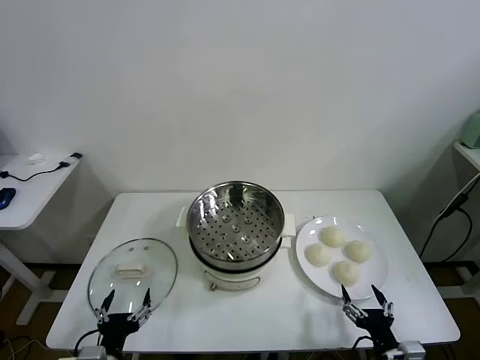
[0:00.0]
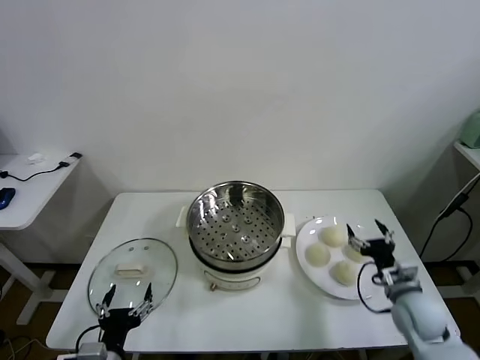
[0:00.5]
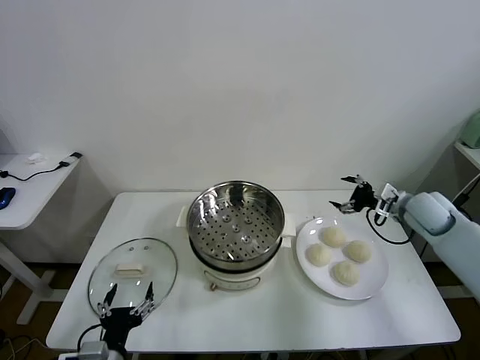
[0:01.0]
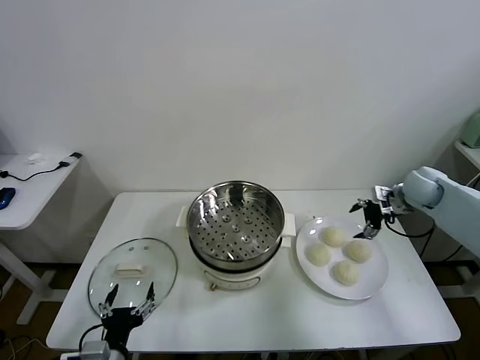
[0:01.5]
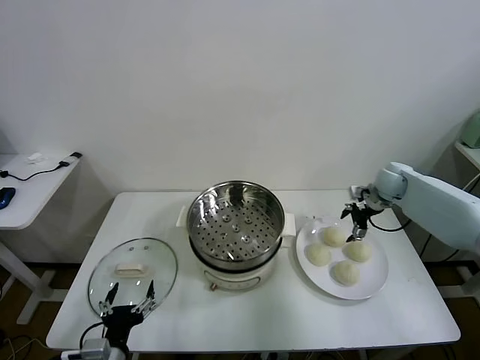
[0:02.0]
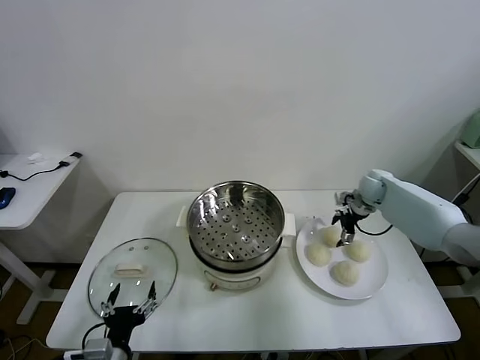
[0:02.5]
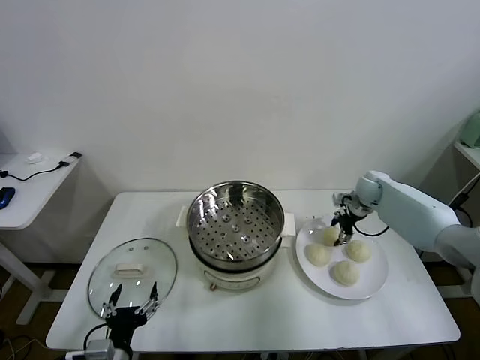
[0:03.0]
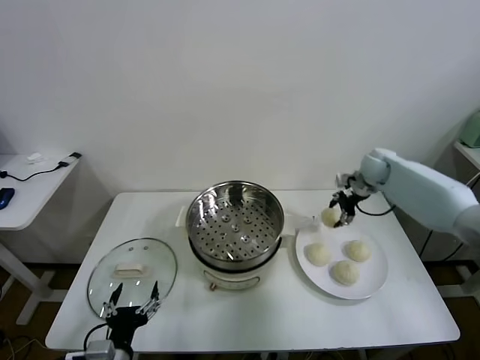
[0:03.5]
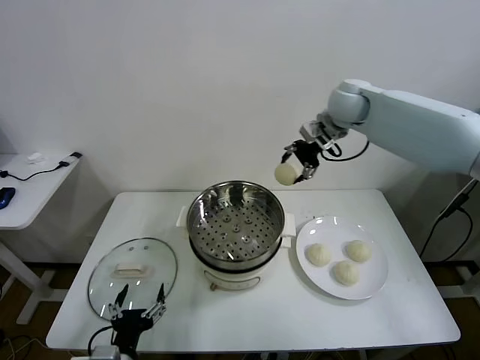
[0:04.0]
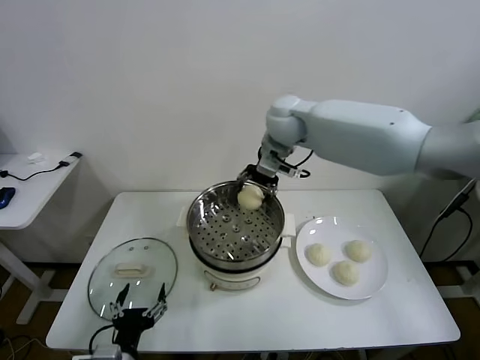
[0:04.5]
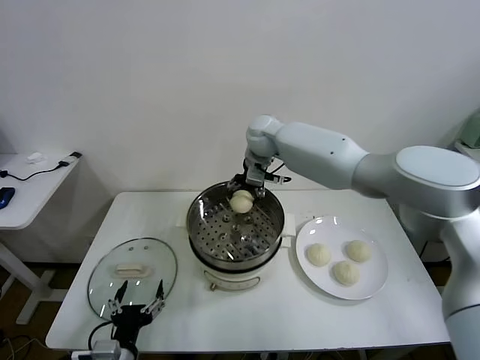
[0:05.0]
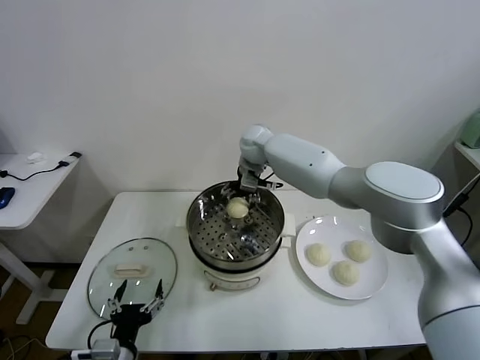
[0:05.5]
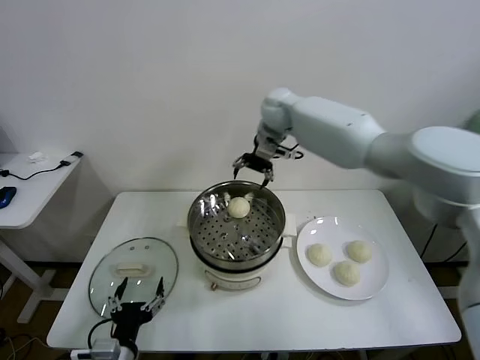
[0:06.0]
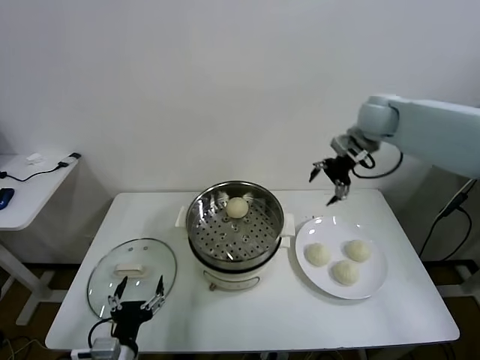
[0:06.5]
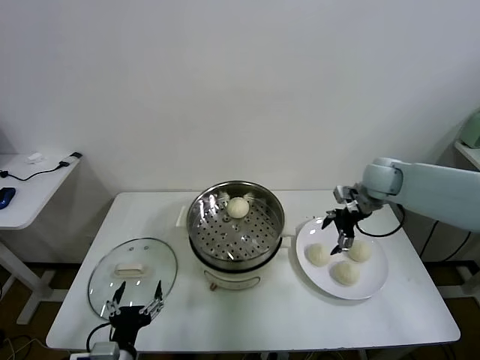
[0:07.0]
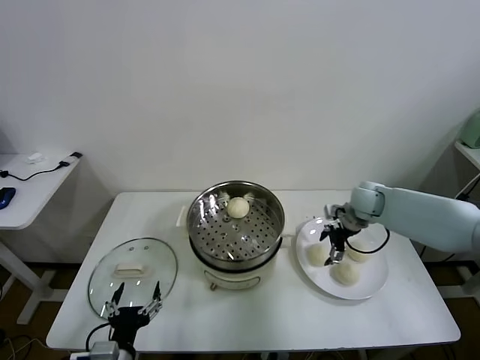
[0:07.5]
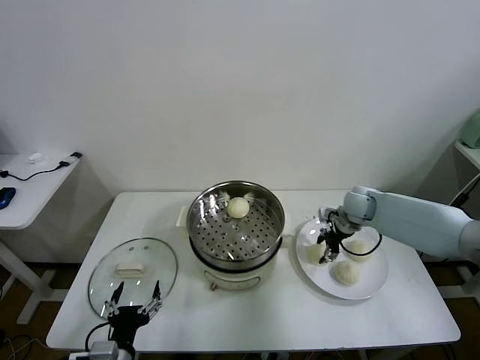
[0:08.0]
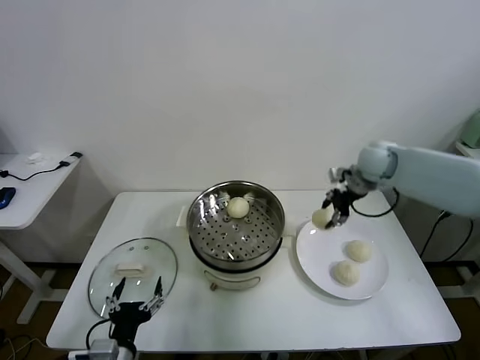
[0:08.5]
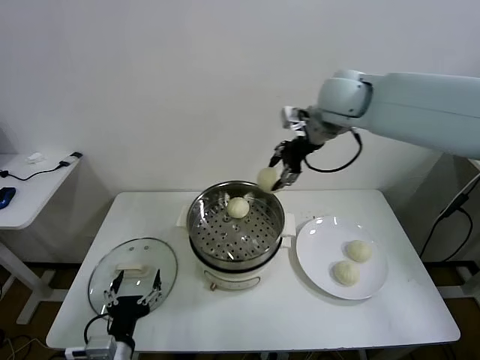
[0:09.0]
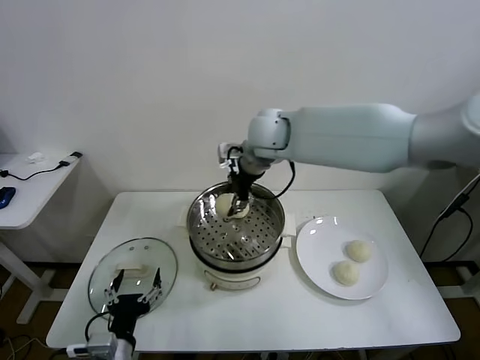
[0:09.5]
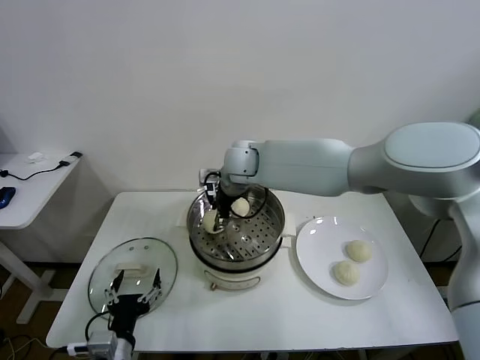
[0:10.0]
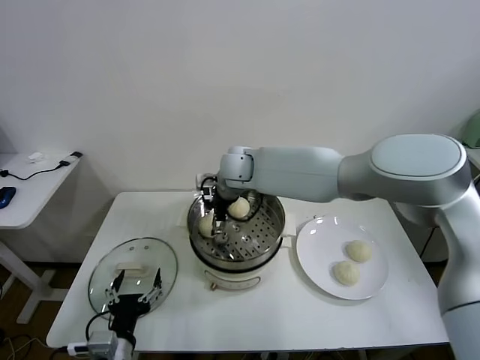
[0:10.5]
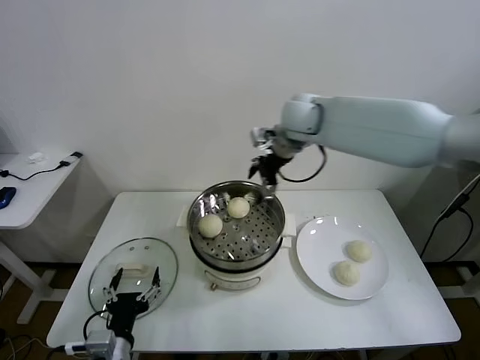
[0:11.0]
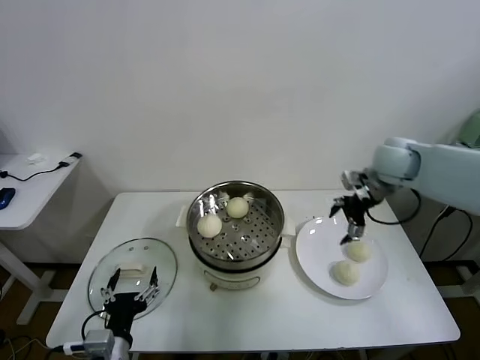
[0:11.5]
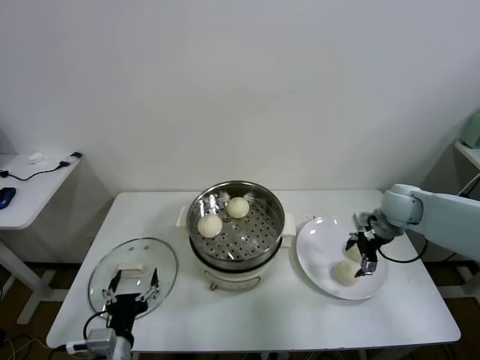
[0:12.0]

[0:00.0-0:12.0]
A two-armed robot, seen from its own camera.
Task of the whole recording: take steamed baozi put them in steamer.
Step, 0:00.0 to 0:02.5: Grasp the baozi in the plate with right gripper.
Step, 0:03.5 to 0:05.5: Place the baozi on the steamer with right gripper.
Step, 0:06.0 to 0:07.5: Grasp the baozi in the plate with right gripper.
Step, 0:08.5 to 0:10.0: Place the baozi on the steamer with right gripper.
0:02.0 to 0:04.0: The right gripper moves upward and to the left, about 30 cm, and closes.
0:04.0 to 0:06.0: The right gripper is displaced forward by some 5 cm, goes to the left and returns, about 15 cm each way, and opens.
0:06.0 to 0:08.0: The right gripper goes approximately 30 cm downward, to the right and backward, and closes its fingers.
0:08.0 to 0:10.0: The right gripper heads to the left and upward, covering about 35 cm.
0:10.0 to 0:12.0: The right gripper travels to the right by about 40 cm, and opens its fingers.

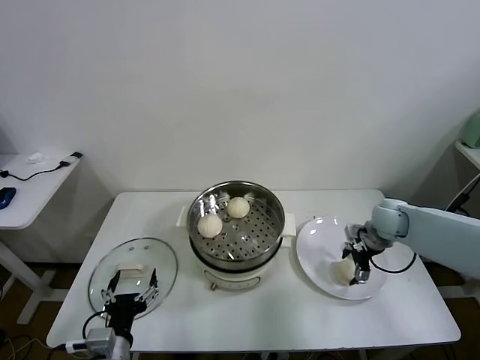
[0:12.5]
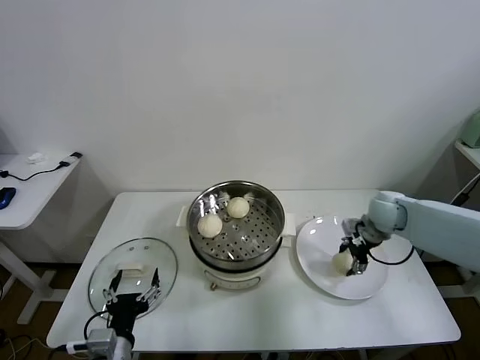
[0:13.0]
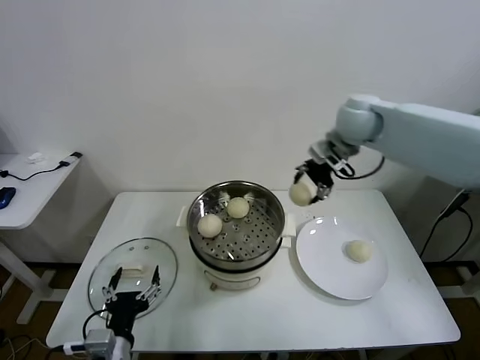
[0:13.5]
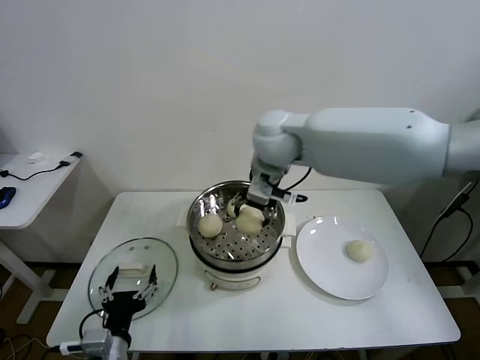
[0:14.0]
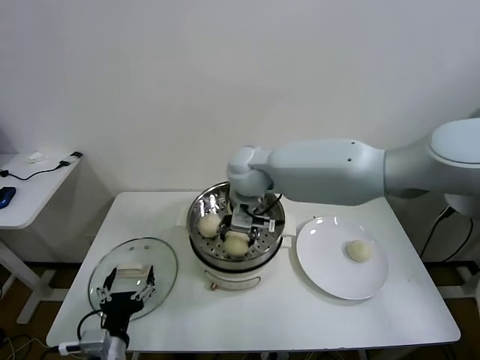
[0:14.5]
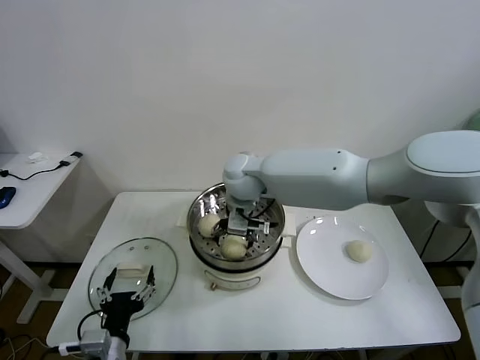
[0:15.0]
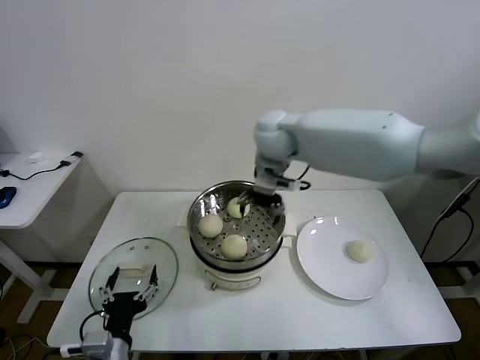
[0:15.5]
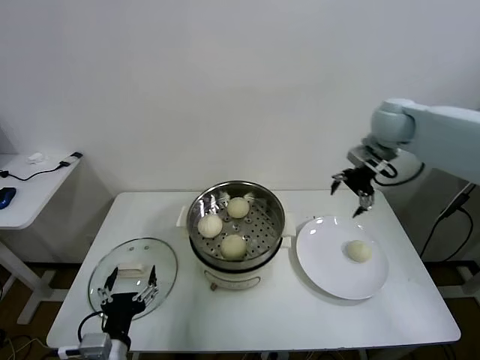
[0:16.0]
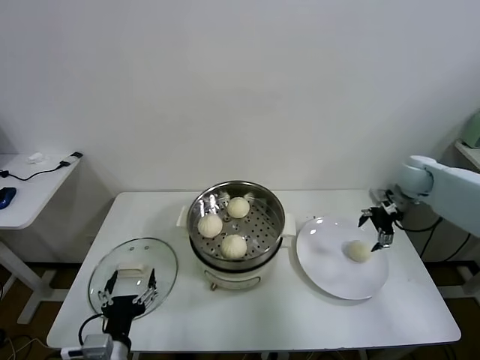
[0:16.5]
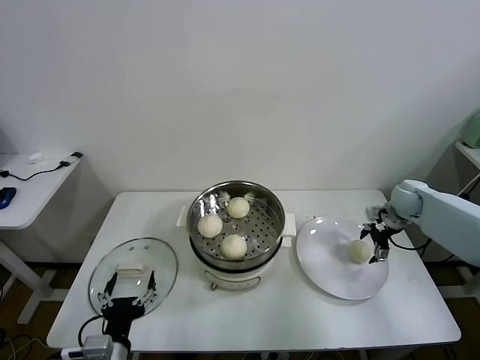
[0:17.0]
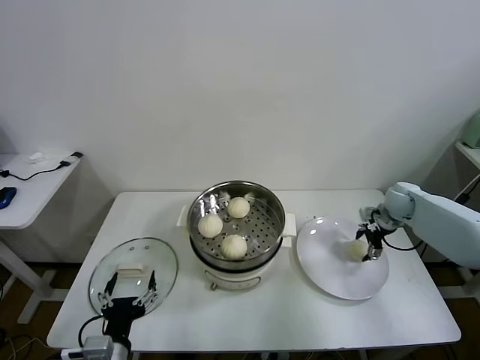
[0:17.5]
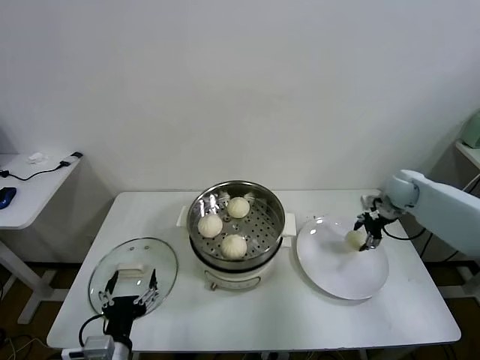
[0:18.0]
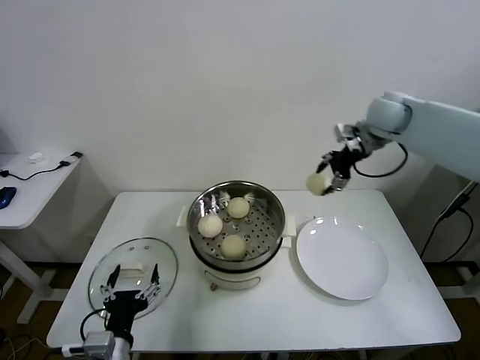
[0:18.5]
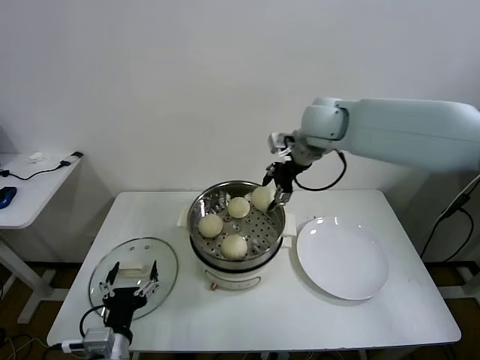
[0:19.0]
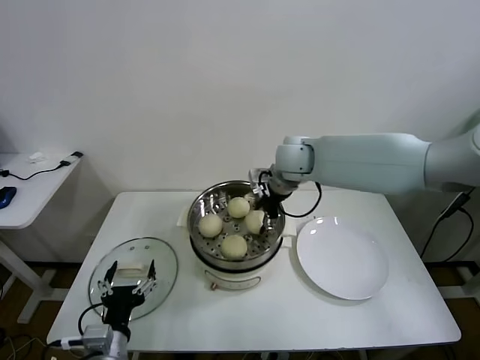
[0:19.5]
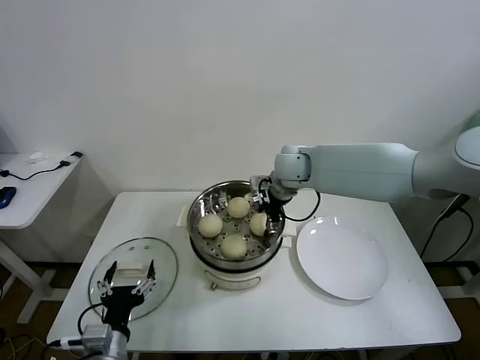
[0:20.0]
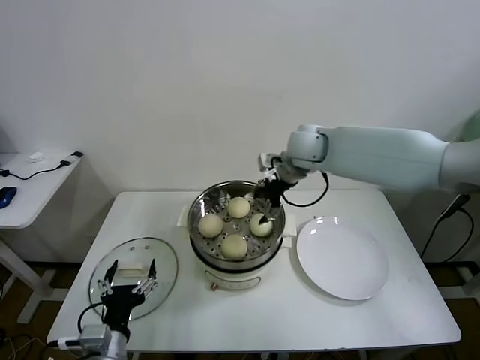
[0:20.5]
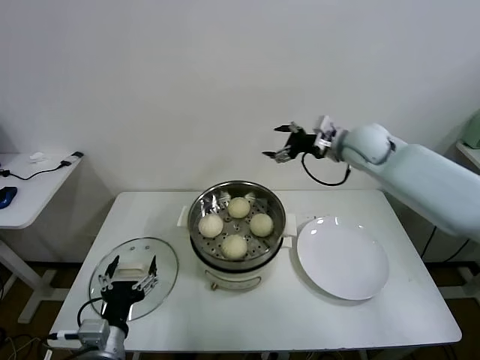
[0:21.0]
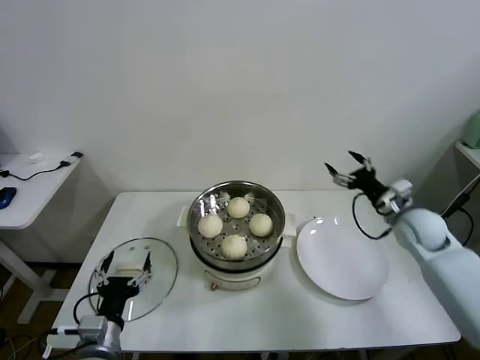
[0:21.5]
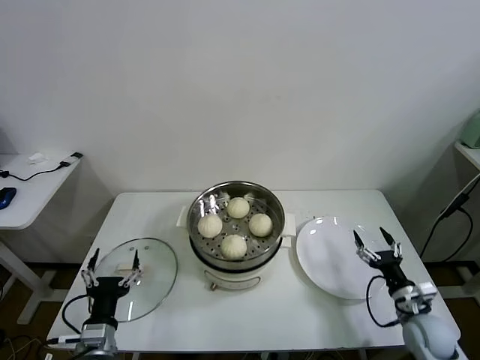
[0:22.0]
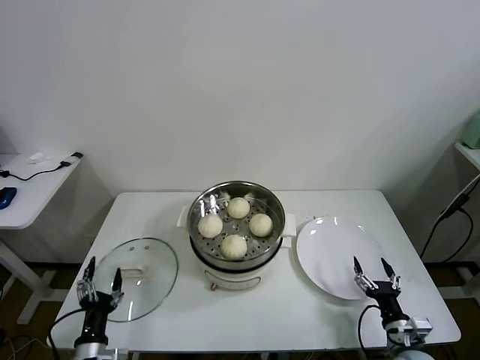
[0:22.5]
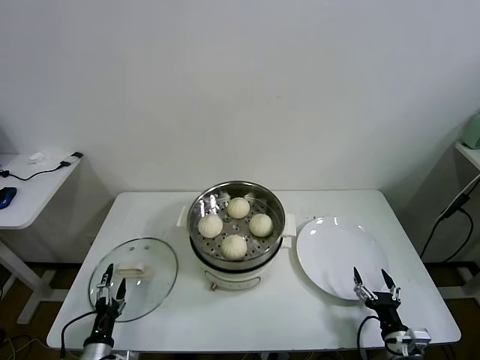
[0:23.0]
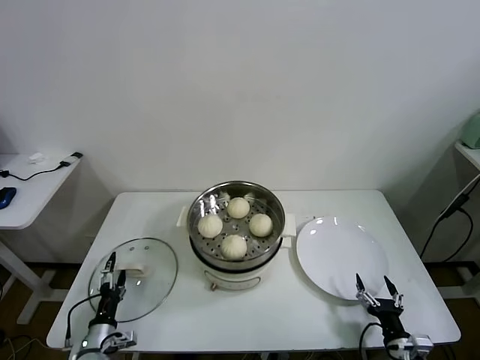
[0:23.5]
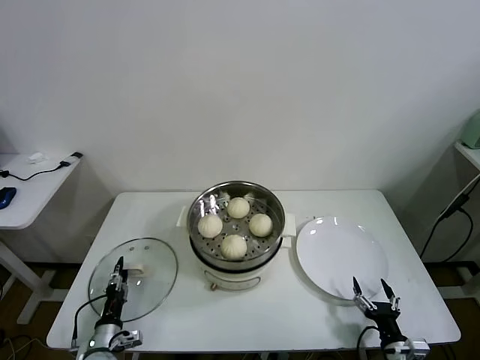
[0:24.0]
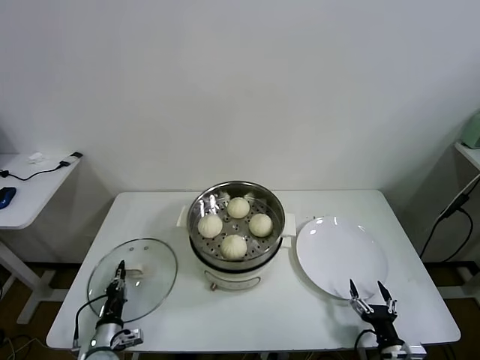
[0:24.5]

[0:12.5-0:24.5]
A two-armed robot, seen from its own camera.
Task of the whole recording: take steamed baozi put them in steamer.
Step, 0:13.0 to 0:15.0: Place the baozi on the steamer with right gripper.
Step, 0:15.5 to 0:17.5: Grasp the baozi in the plate with right gripper.
Step, 0:18.0 to 0:20.0: Place the baozi on the steamer with right gripper.
Step, 0:20.5 to 0:24.0: Grasp the pot lid with left gripper.
0:12.5 to 0:14.5: The right gripper travels to the left and upward by about 40 cm, and closes.
0:14.5 to 0:16.5: The right gripper goes approximately 40 cm to the right, and opens its fingers.
0:16.5 to 0:18.5: The right gripper is displaced upward and to the left by about 20 cm, and closes up.
0:18.5 to 0:20.5: The right gripper is displaced to the left and downward by roughly 15 cm, and opens its fingers.
0:20.5 to 0:22.5: The left gripper shifts roughly 15 cm downward and to the left. The right gripper goes approximately 60 cm downward, backward and to the right.
0:22.5 to 0:24.5: The right gripper moves roughly 5 cm, while the left gripper heads downward and forward, covering approximately 10 cm, and closes.

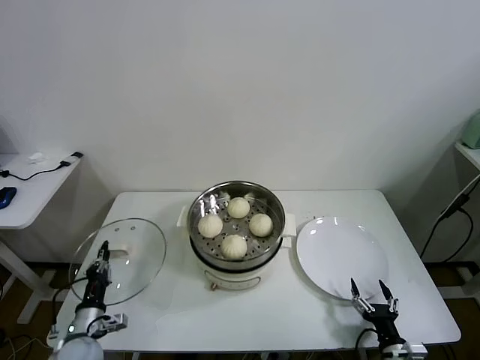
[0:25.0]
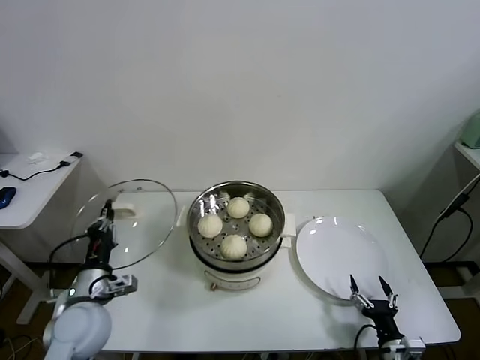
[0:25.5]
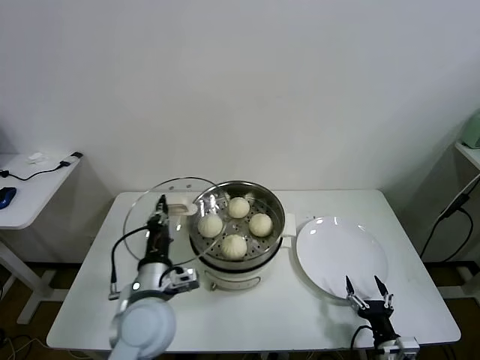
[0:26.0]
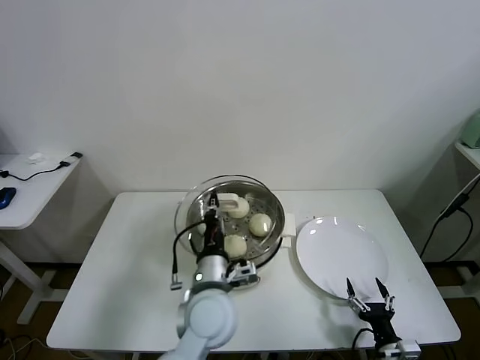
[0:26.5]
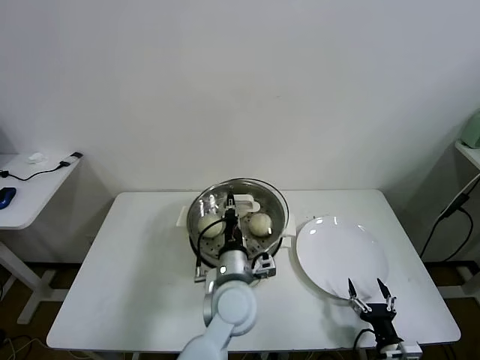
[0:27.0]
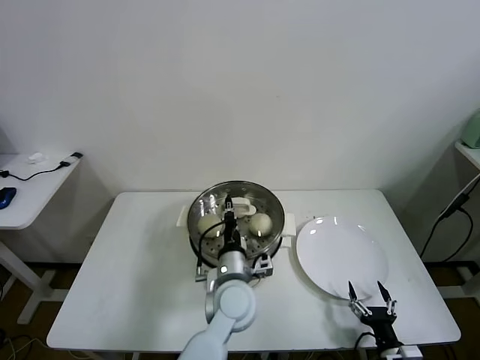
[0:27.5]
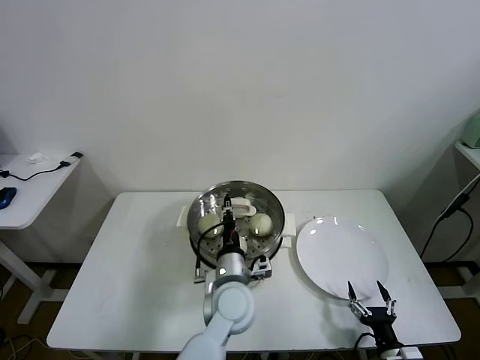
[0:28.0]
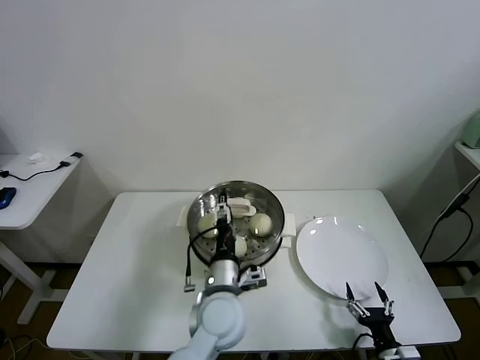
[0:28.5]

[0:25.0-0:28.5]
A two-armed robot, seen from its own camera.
Task of the whole recording: take steamed baozi put them in steamer.
Step, 0:25.0 to 0:28.5: Place the pot lid on the steamer with left gripper.
0:25.0 to 0:27.0: The left gripper moves to the right and upward, roughly 40 cm.
0:27.0 to 0:28.5: The left gripper opens its fingers.
